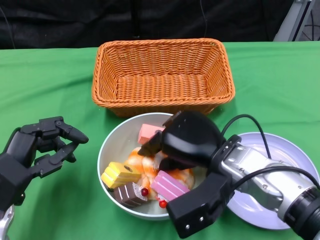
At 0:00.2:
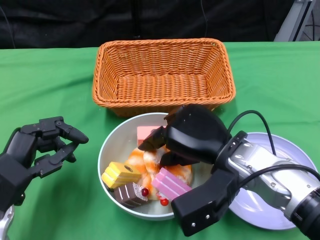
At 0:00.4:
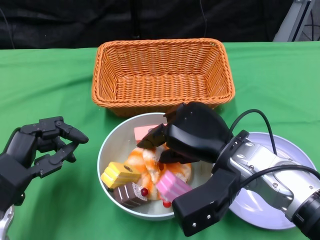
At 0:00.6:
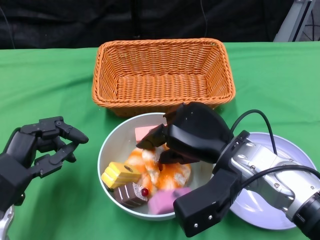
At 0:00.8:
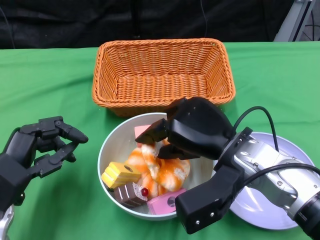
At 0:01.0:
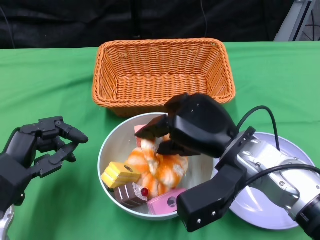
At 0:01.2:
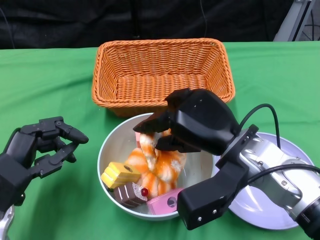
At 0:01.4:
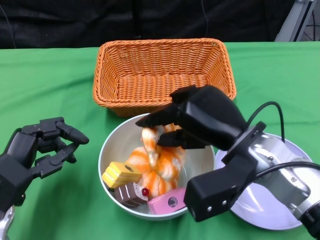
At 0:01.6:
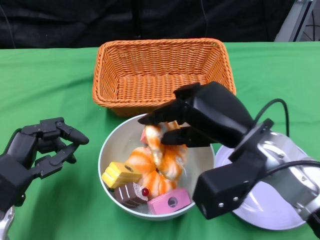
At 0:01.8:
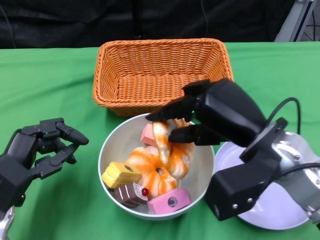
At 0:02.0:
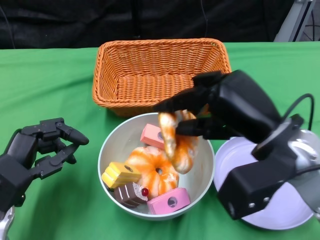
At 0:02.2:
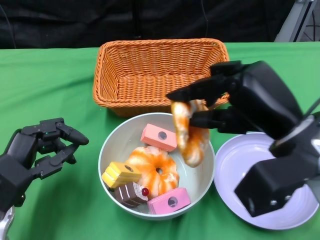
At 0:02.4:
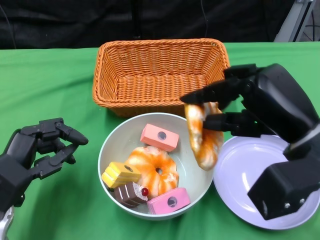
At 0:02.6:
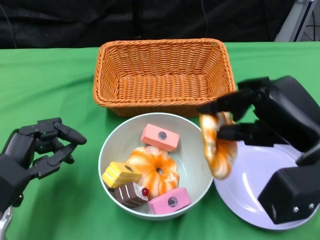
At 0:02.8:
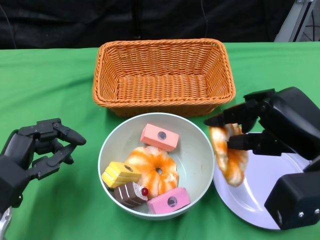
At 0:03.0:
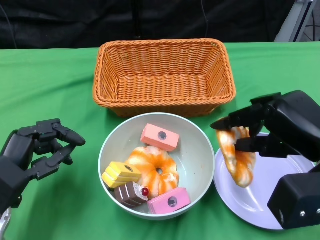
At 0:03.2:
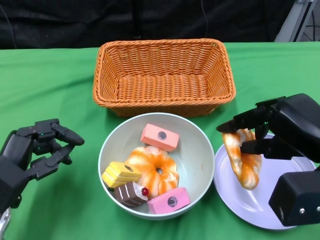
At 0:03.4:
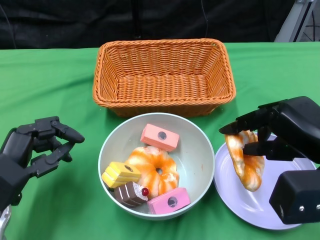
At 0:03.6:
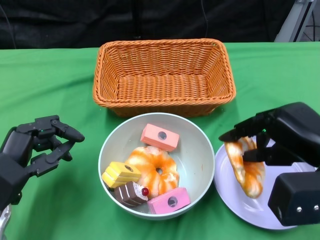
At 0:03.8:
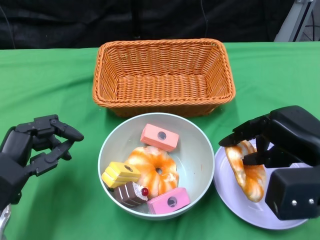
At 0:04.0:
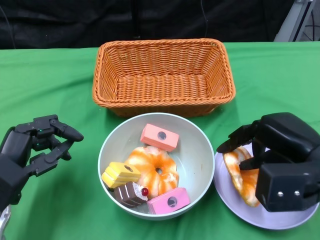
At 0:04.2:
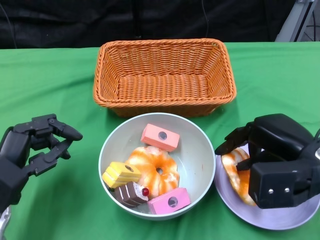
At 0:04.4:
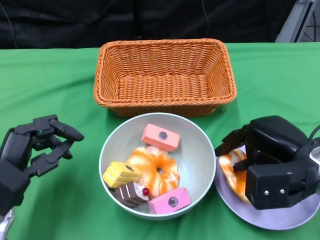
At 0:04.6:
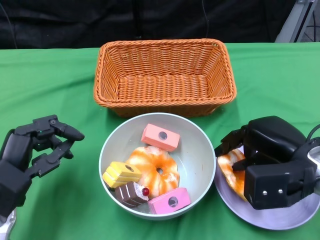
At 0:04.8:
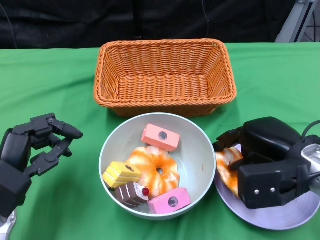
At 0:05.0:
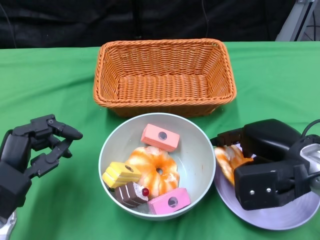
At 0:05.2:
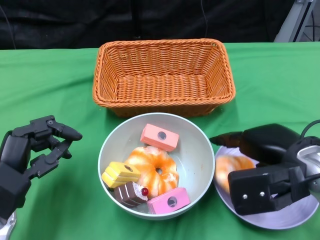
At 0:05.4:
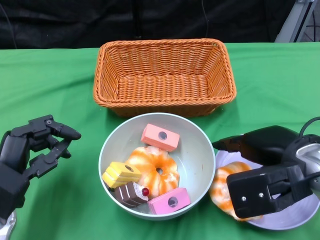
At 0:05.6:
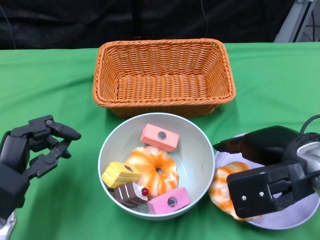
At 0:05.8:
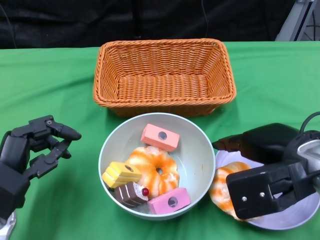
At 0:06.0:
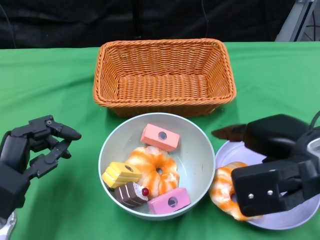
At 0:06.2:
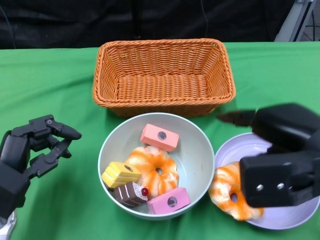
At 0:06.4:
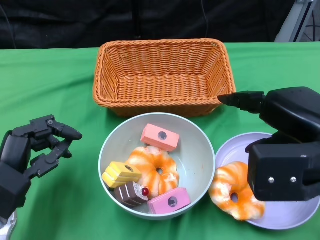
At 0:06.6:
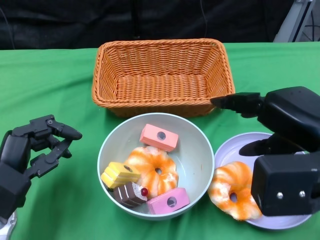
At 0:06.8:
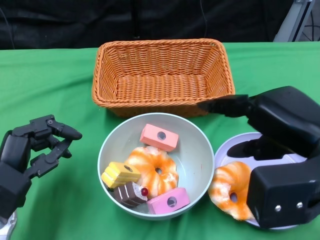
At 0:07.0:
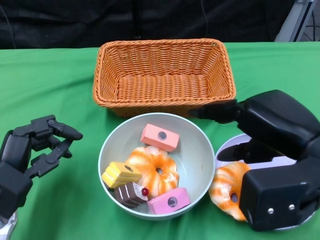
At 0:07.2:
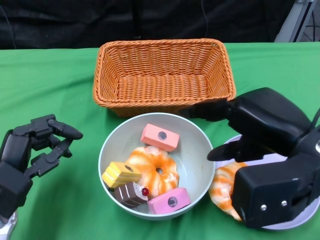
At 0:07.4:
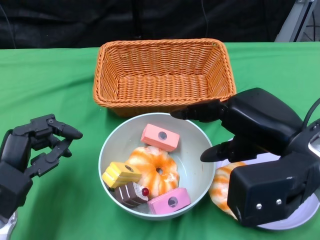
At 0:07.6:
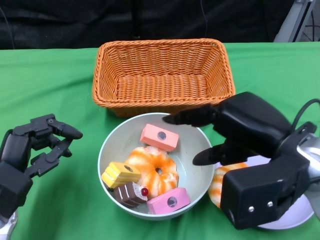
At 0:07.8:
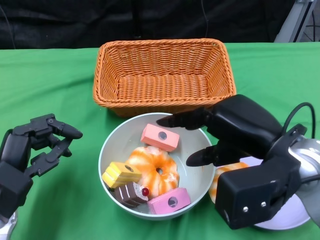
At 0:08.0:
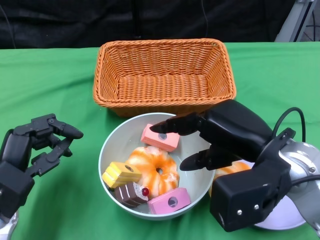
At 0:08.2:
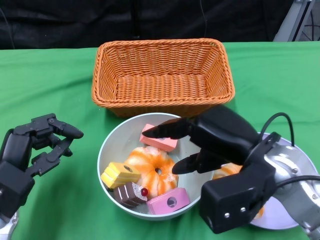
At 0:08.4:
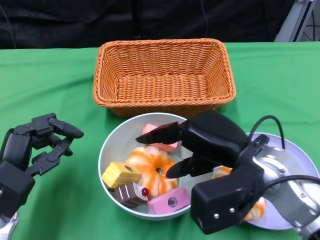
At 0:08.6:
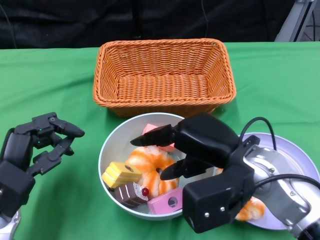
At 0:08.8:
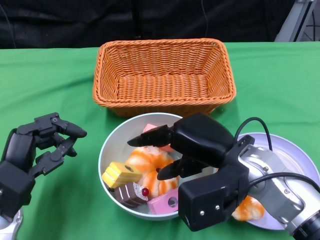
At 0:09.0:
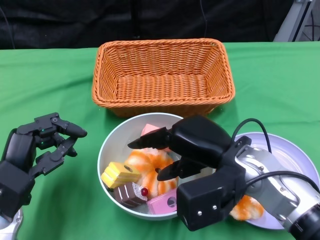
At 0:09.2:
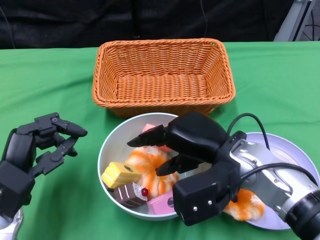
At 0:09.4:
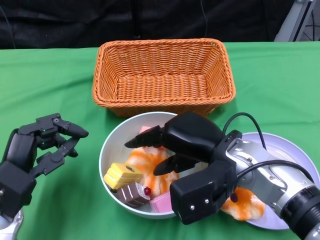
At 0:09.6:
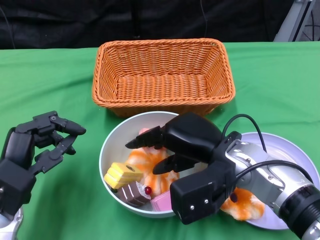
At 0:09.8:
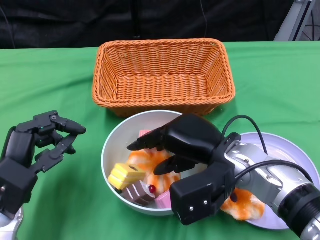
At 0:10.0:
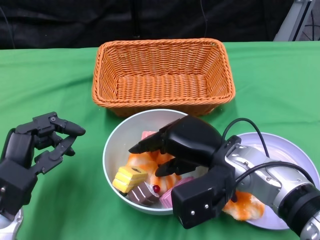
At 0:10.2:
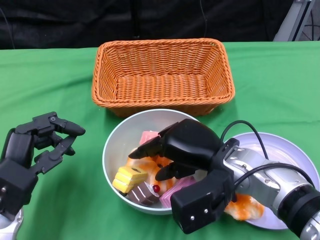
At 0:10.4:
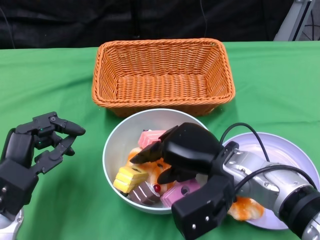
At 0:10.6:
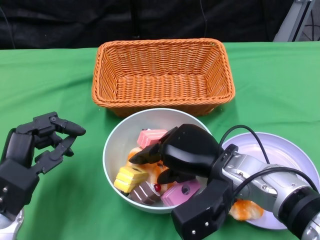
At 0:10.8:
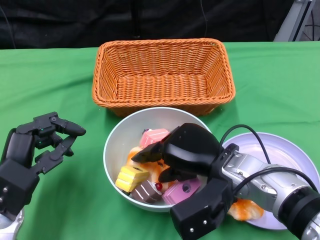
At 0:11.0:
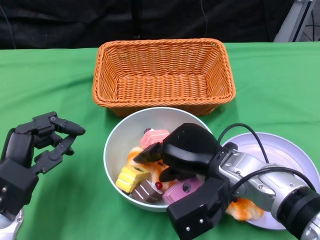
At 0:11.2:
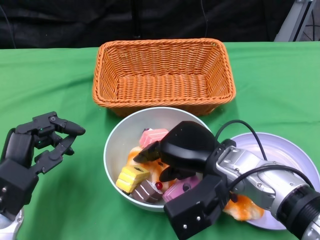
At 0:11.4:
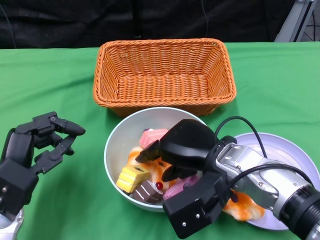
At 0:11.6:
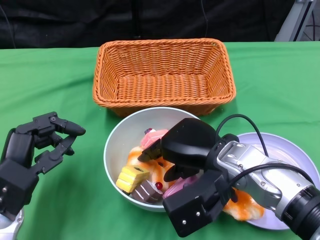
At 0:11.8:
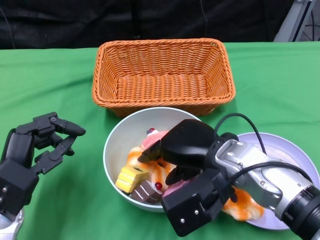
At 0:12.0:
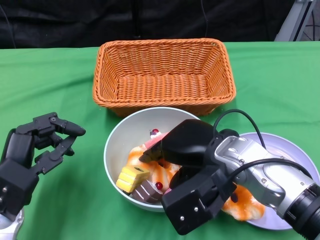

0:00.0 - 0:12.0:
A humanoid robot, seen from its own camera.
0:00.0 - 0:01.6: The right hand moves about 5 cm.
0:01.6 - 0:03.0: The right hand heads to the right, covering approximately 10 cm.
0:03.0 - 0:04.4: The right hand heads downward, covering some 5 cm.
0:04.4 - 0:06.0: The right hand travels upward by roughly 5 cm.
0:07.6 - 0:09.0: The right hand travels downward and to the left by approximately 10 cm.
0:09.0 - 0:10.4: There are only small adjustments of the hands.
0:10.4 - 0:12.0: There are only small adjustments of the hands.

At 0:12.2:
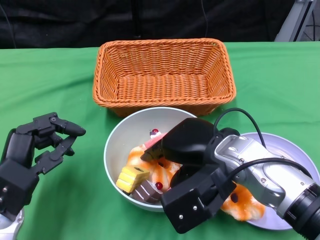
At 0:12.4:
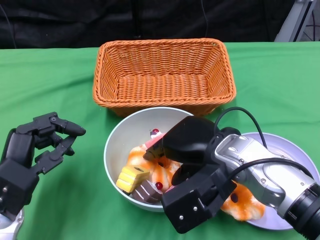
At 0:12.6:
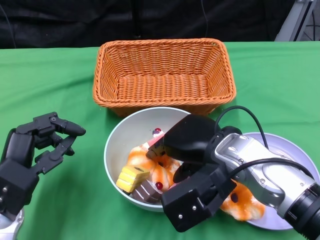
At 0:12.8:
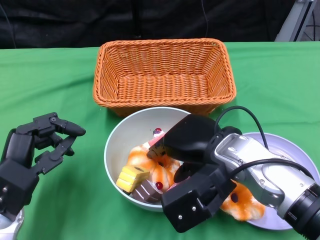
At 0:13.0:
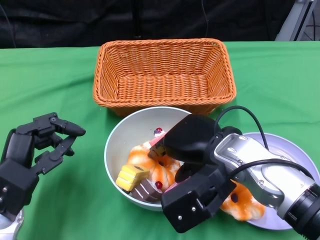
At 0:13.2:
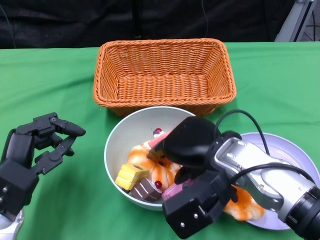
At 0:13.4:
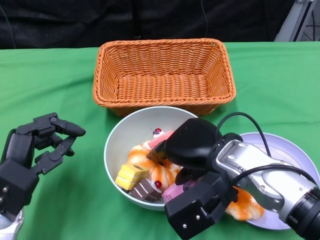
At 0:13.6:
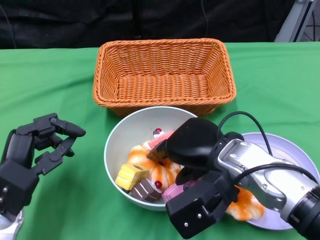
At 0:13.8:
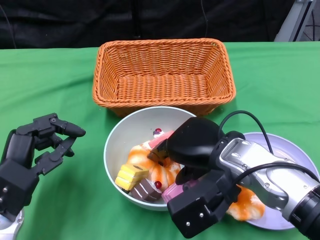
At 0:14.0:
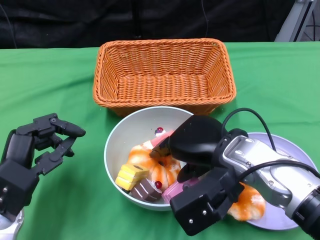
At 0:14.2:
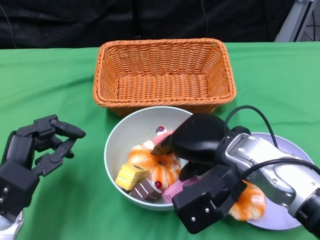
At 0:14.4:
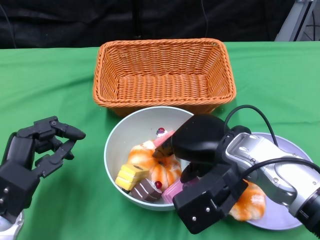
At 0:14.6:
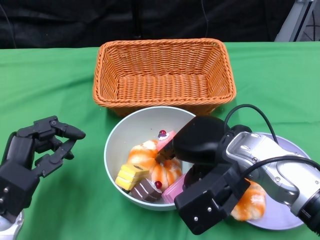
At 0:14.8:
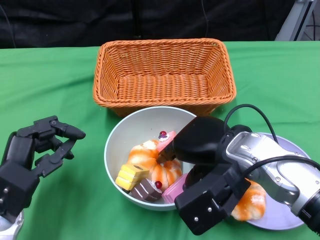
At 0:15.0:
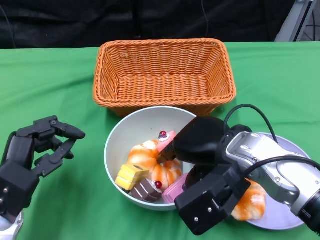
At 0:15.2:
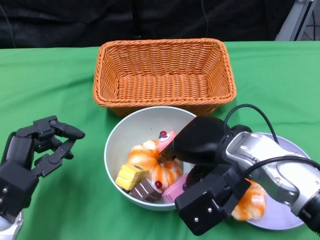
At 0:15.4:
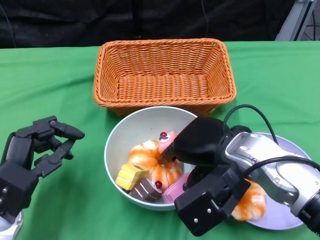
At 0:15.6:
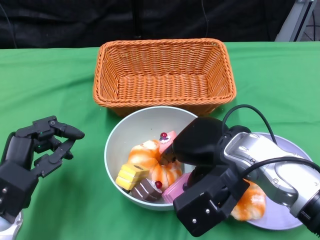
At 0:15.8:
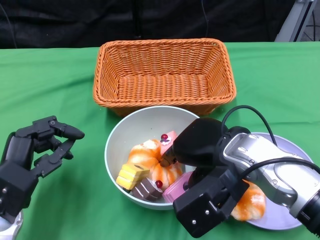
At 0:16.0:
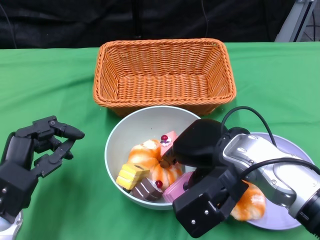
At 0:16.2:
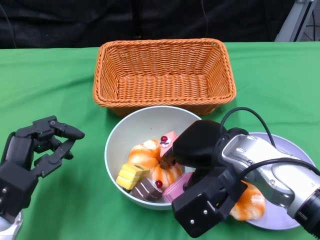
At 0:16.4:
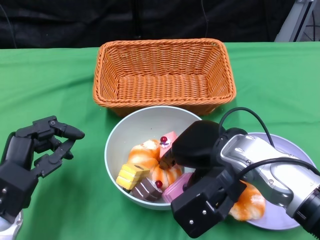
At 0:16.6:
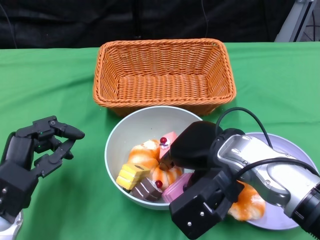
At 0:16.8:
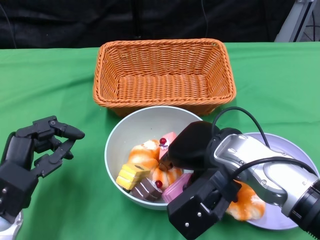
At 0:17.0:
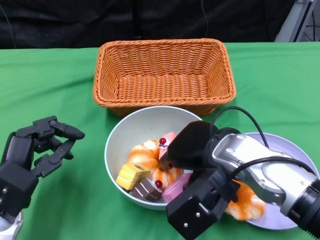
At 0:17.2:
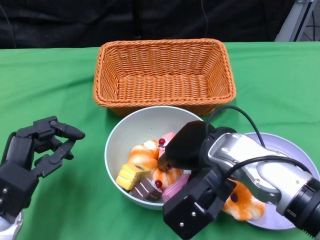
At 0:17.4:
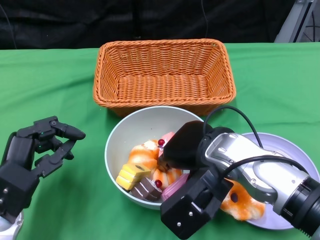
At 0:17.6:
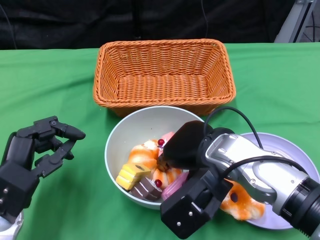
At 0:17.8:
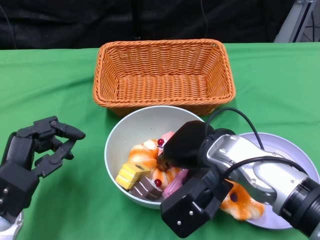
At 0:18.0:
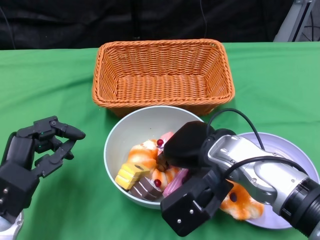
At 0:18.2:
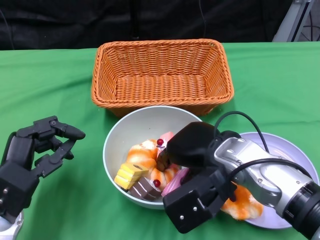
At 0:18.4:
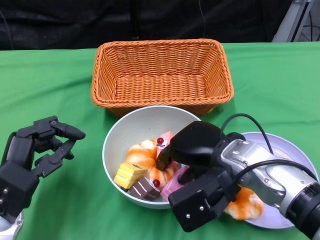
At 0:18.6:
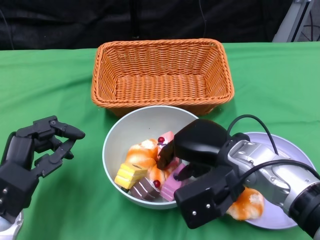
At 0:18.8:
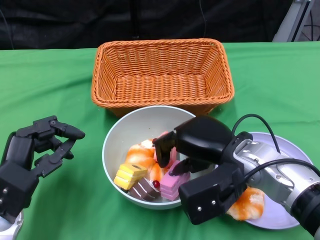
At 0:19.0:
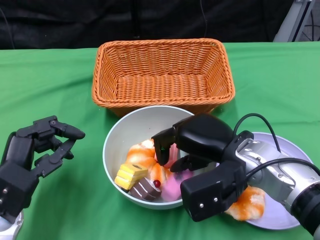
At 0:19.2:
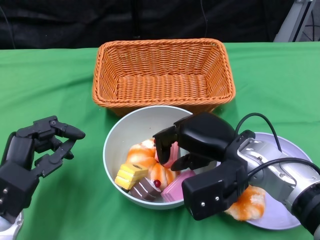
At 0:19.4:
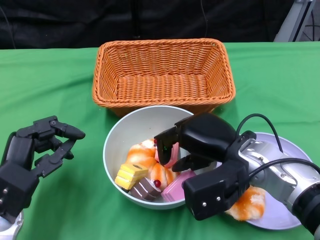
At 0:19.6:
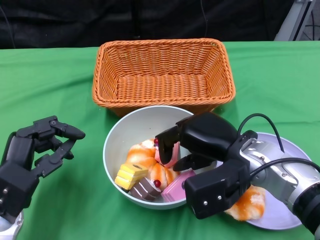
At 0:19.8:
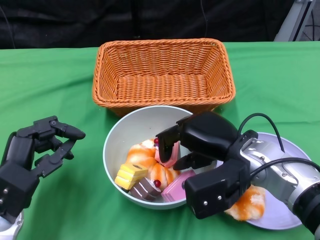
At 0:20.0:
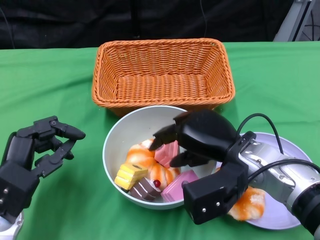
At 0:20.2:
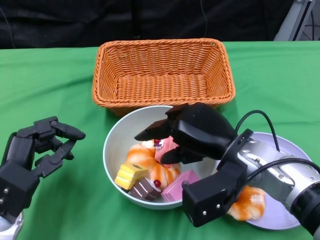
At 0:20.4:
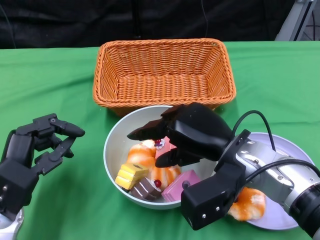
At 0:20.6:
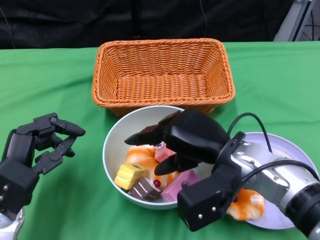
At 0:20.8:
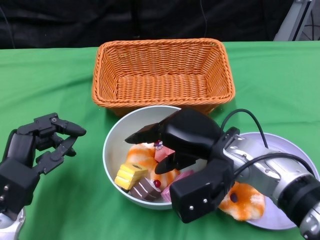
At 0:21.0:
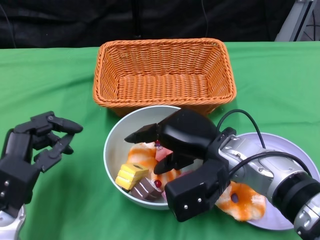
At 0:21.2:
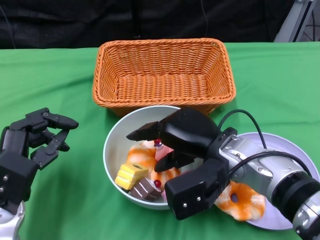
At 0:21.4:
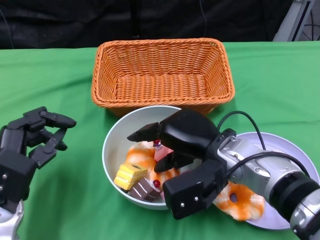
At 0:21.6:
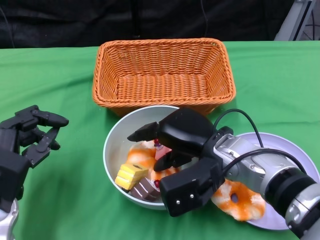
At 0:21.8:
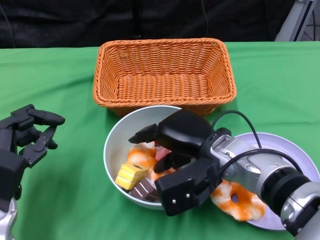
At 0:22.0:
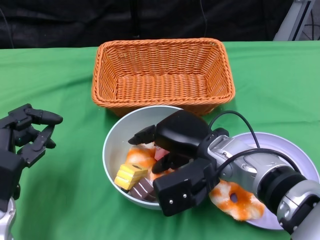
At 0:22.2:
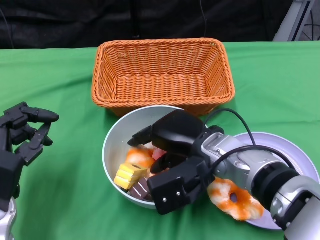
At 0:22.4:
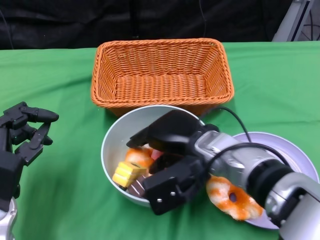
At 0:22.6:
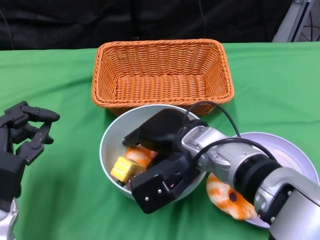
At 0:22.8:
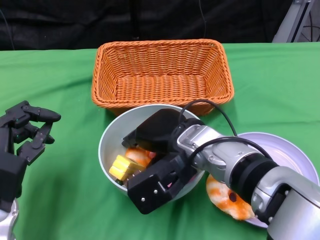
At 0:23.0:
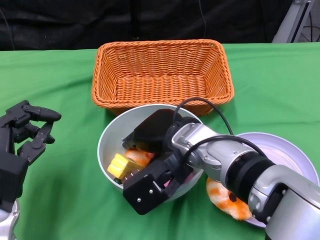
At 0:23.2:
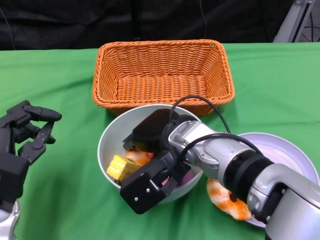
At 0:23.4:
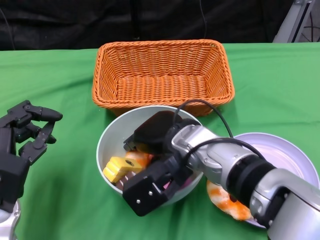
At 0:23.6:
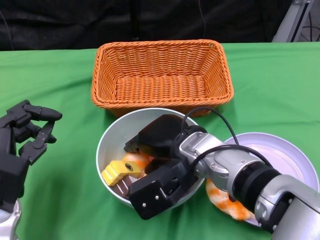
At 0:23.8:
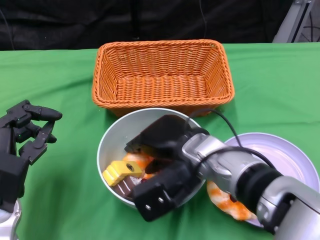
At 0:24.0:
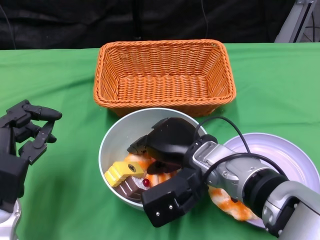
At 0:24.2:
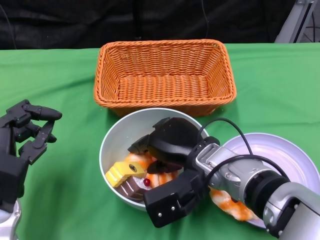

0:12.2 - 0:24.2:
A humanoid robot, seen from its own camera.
0:12.2 - 0:18.2: The hands move only a little.
